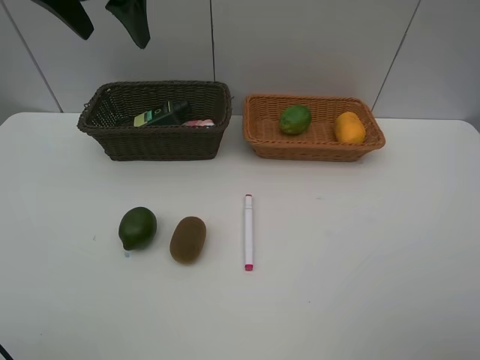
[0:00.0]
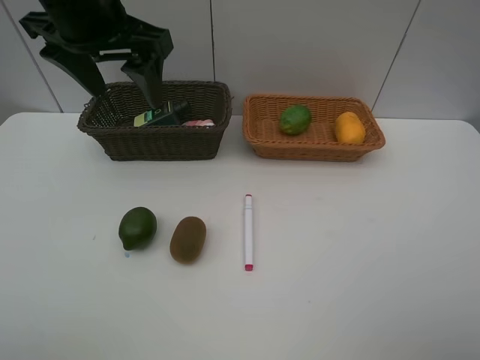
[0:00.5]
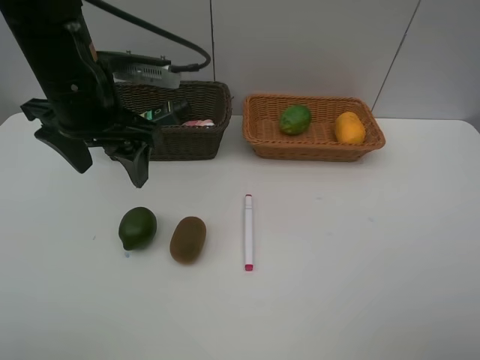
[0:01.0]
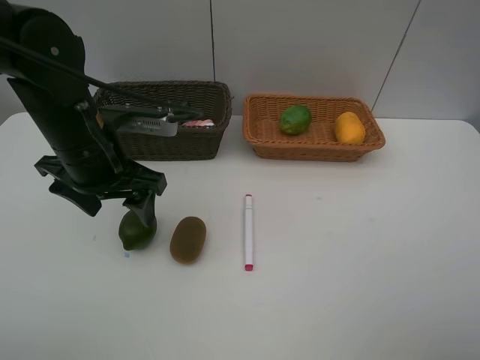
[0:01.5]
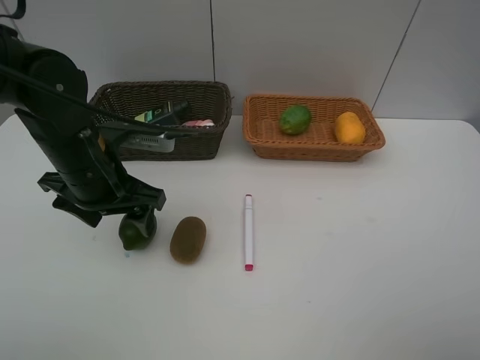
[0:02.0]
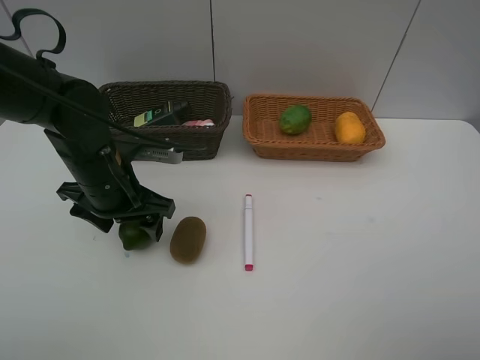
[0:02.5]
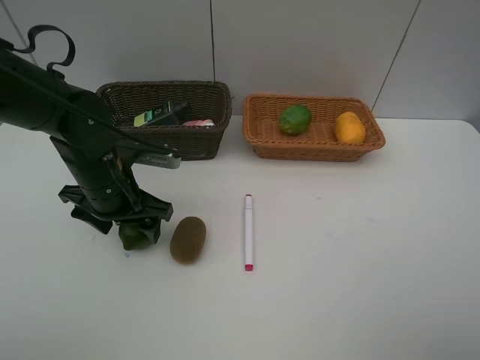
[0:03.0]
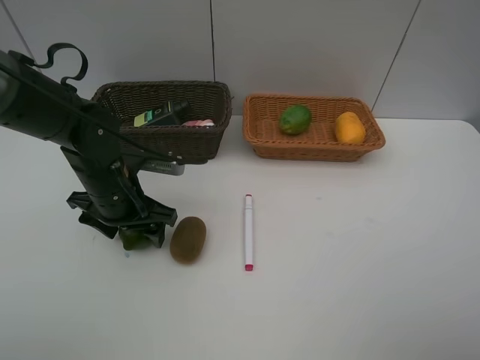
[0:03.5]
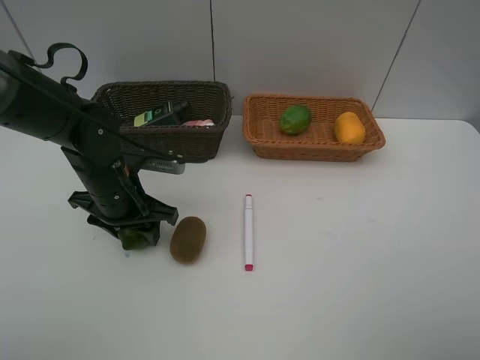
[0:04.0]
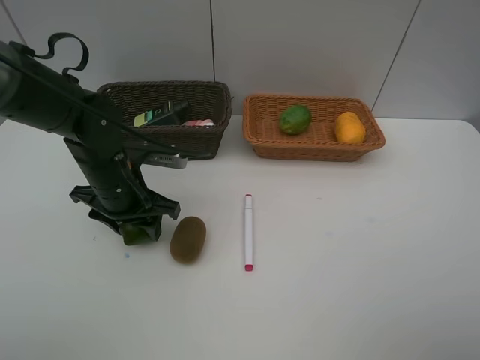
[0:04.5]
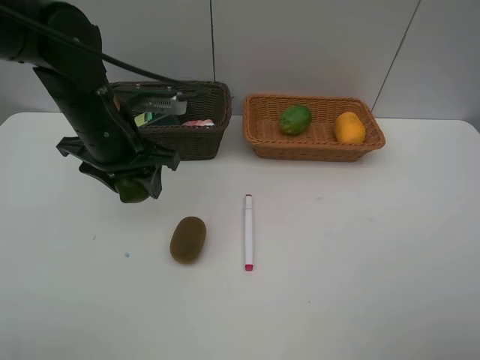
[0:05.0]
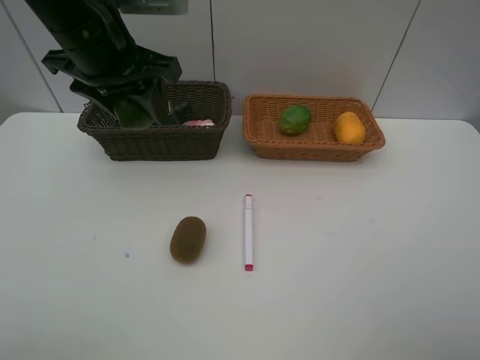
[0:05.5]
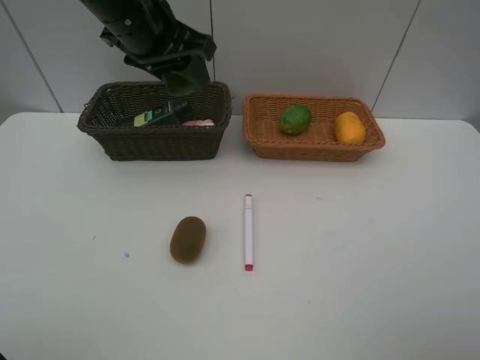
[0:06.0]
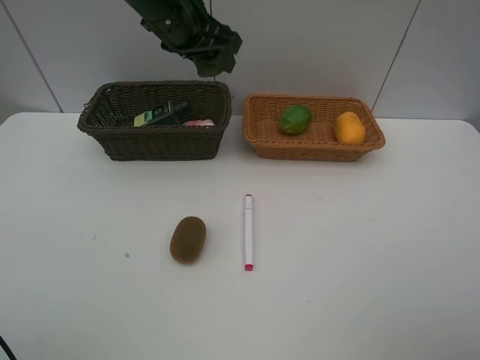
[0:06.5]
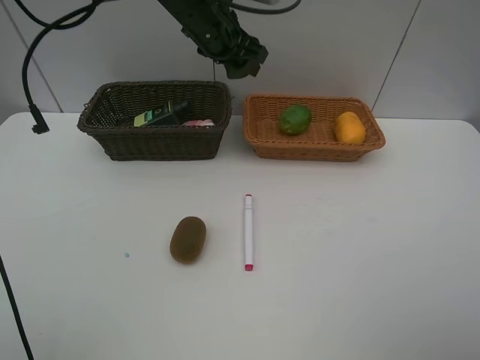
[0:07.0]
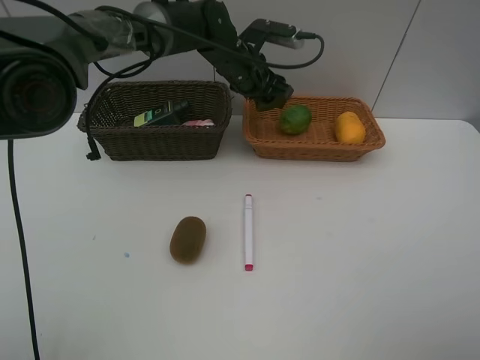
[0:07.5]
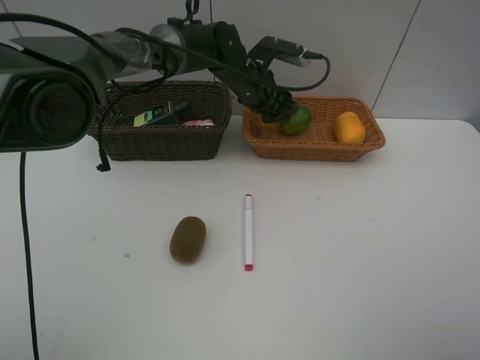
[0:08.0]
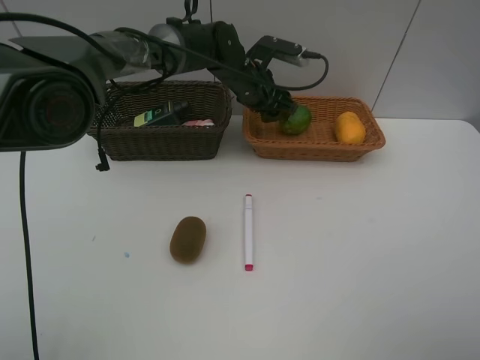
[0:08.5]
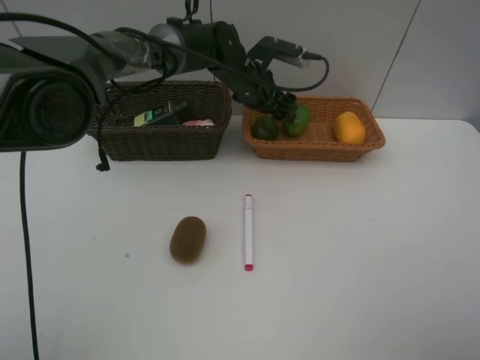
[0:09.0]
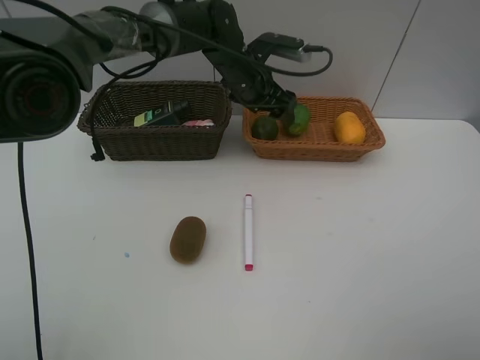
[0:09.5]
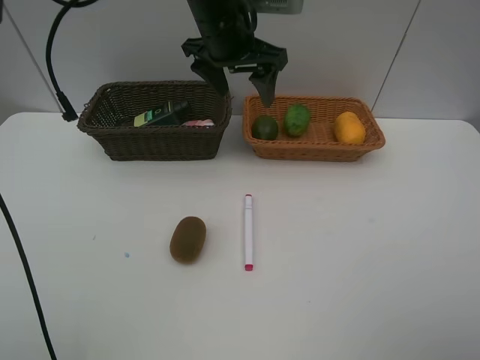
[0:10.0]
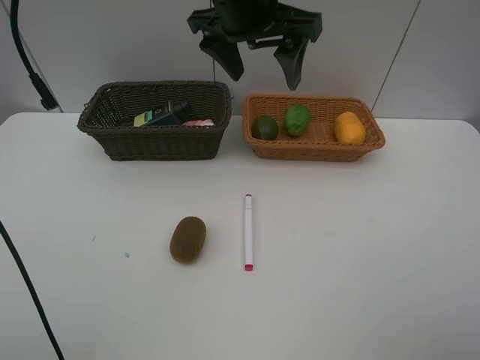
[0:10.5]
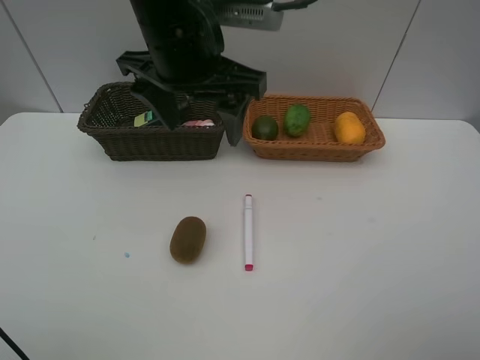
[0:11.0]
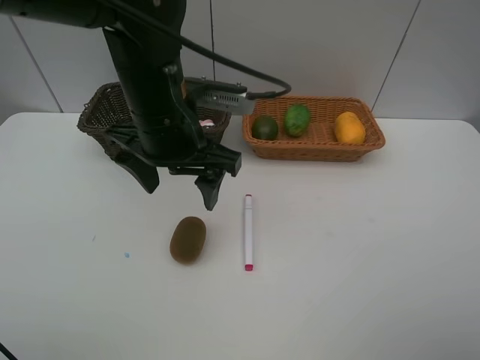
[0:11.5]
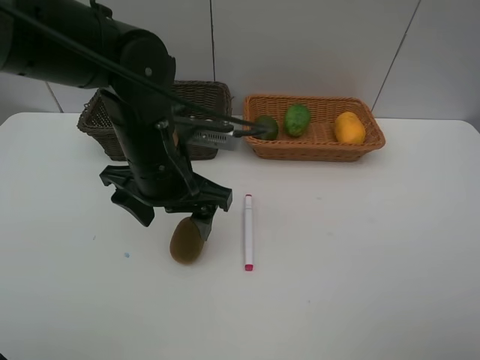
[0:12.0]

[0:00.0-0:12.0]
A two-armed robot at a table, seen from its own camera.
Task of the whole recording: Place multiple objects separately in different baskets.
Step, 0:00.0 to 0:04.5: Pick up the lime with left gripper.
Step, 0:05.0 to 0:09.5: Place the lime in the light basket with left gripper.
0:00.0 to 0:02.0: The left gripper is displaced downward and backward by some 25 cm.
0:02.0 to 0:04.0: The left gripper moves downward, about 5 cm.
0:04.0 to 0:06.0: The left gripper heads upward, covering roughly 20 cm.
0:06.0 to 0:08.0: The left gripper is displaced downward, to the right and forward by approximately 25 cm.
0:08.0 to 0:10.0: The left gripper goes some 15 cm upward and backward, and opens.
0:10.0 to 0:12.0: The left gripper goes approximately 20 cm backward and downward.

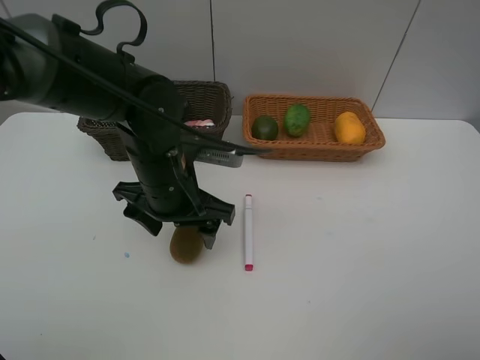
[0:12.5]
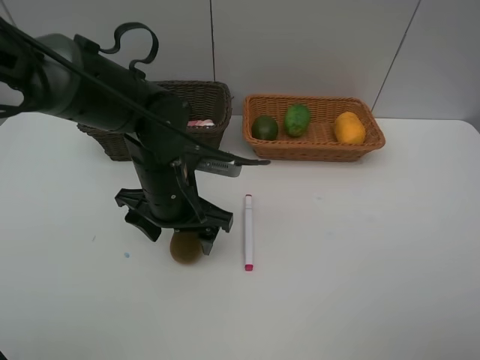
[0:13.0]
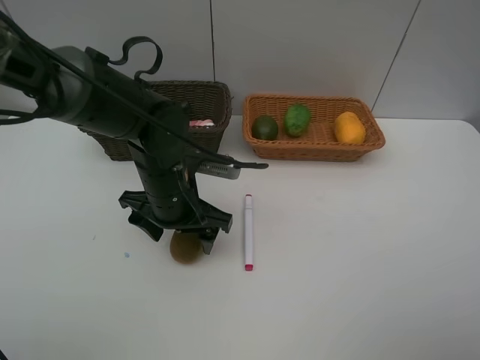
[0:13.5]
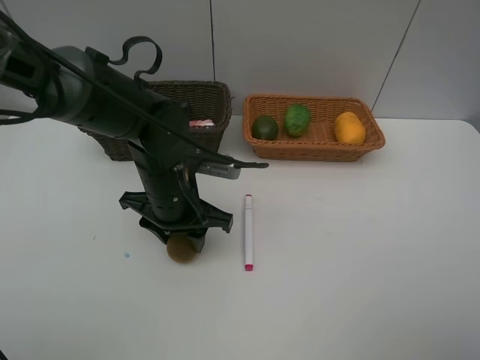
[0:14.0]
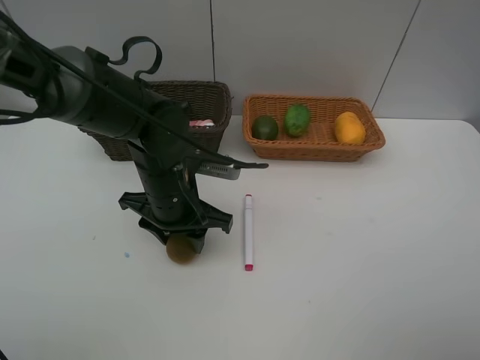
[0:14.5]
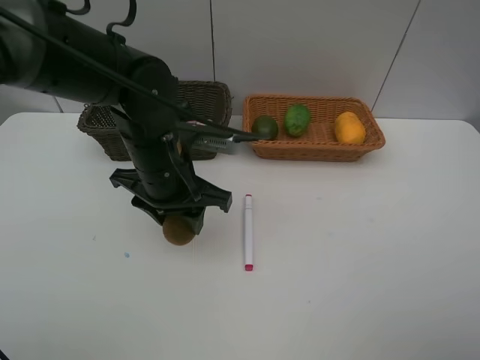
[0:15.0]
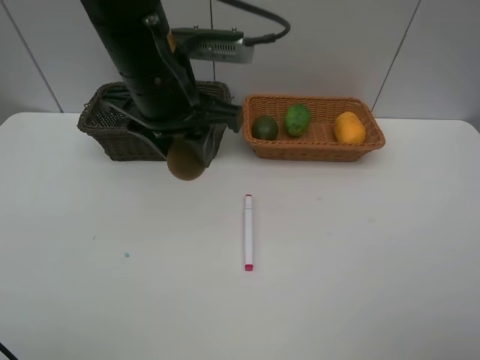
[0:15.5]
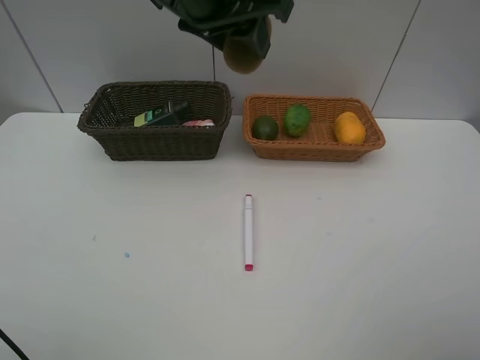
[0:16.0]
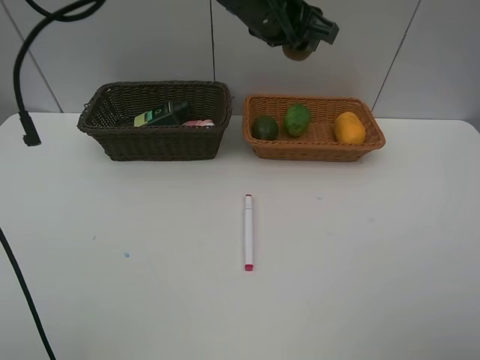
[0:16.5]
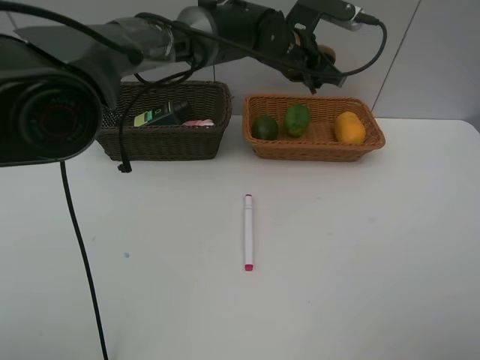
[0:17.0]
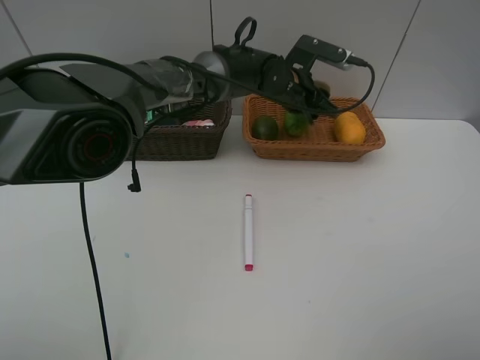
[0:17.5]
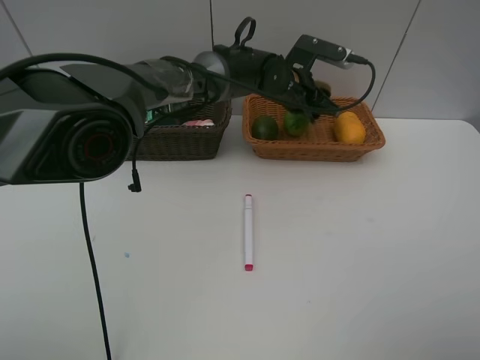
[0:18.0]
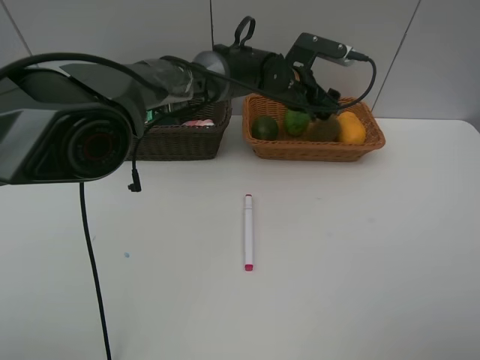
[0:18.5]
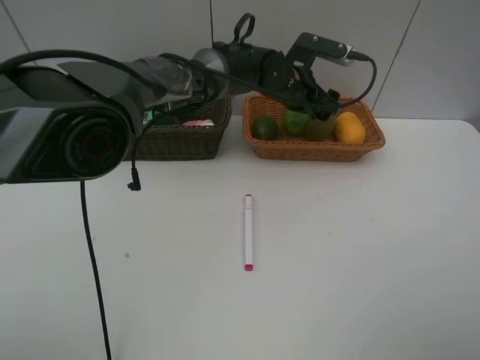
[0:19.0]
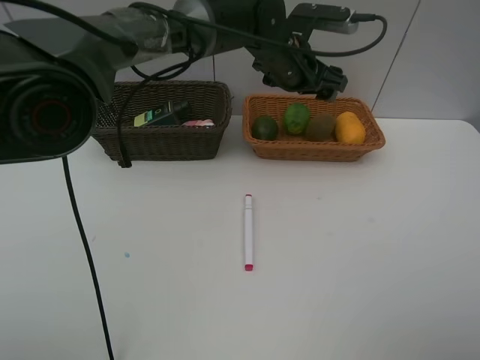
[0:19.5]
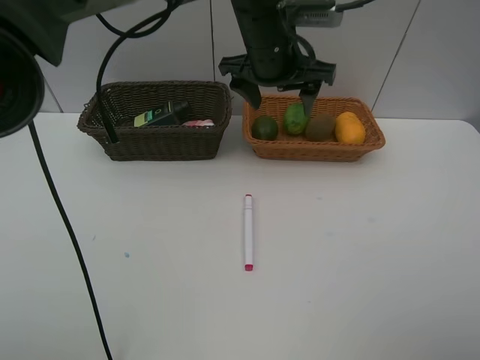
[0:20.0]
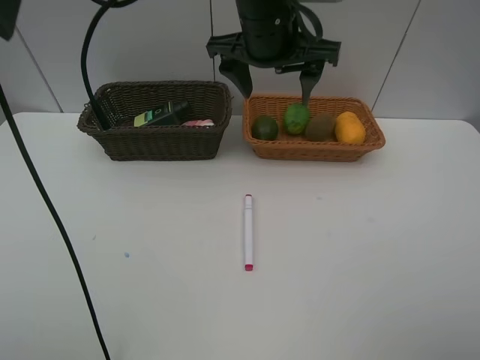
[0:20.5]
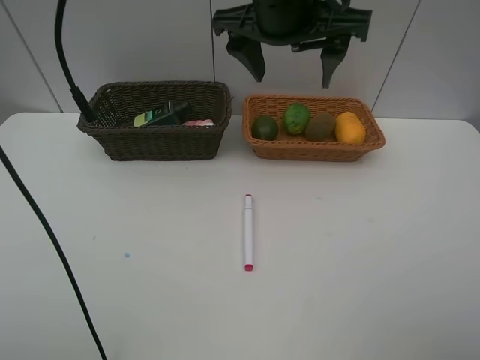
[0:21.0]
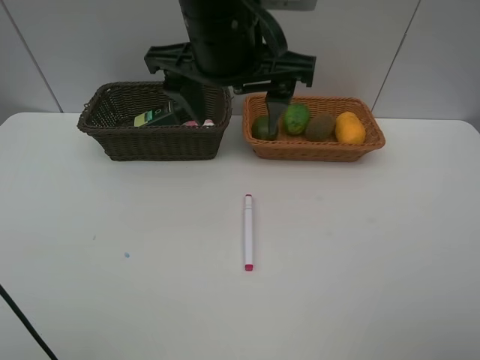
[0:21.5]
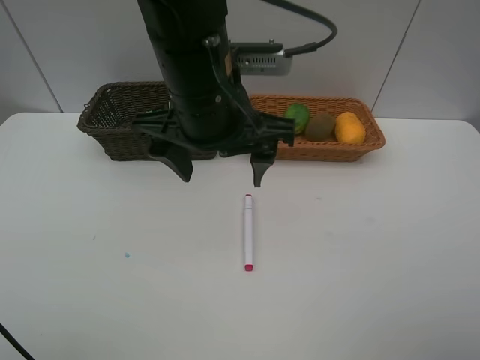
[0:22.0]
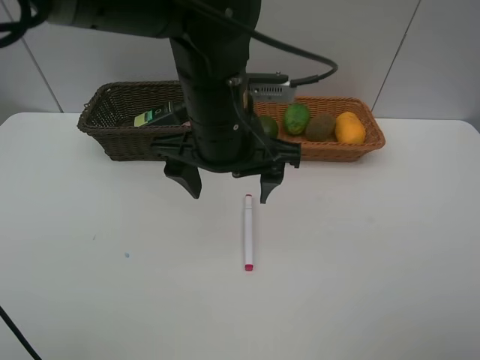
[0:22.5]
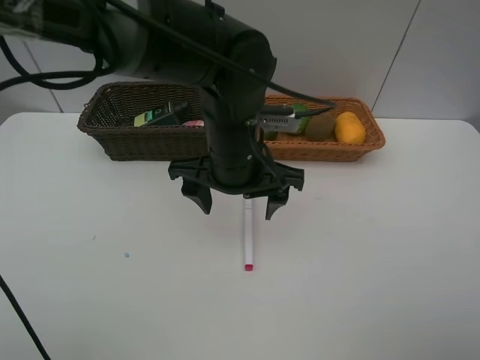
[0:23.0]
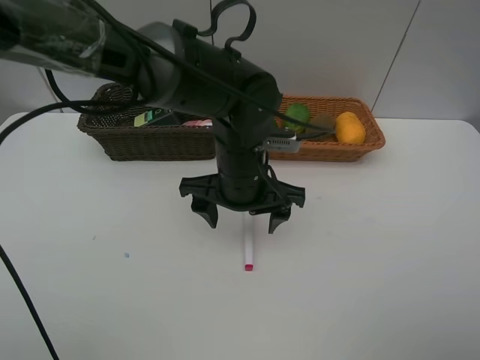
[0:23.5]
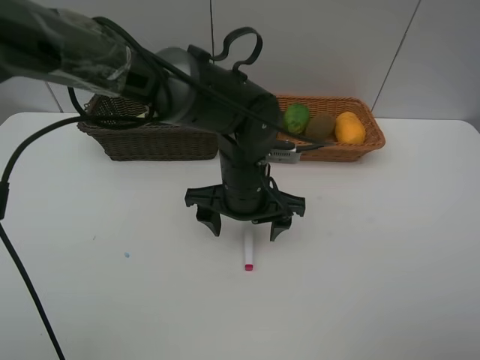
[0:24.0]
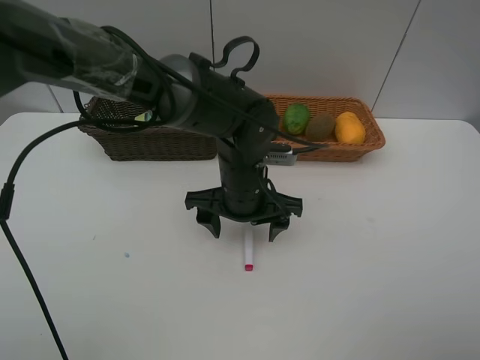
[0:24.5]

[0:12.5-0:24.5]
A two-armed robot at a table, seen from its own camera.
Task of the whole recording: Place multiple objects separately in different baskets.
Step, 0:12.5 to 0:14.5: Pick up kiwi with left gripper.
Step, 0:15.0 to 0:19.0: Place the kiwi in the light basket with left gripper.
0:12.5 to 0:14.5: The left gripper closes its fingers.
0:14.5 to 0:16.5: The left gripper is displaced upward, forward and to the right by some 25 cm.
0:16.5 to 0:18.5: The left gripper is displaced downward by about 15 cm, and opens up.
0:18.5 to 0:20.5: The left gripper goes about 15 cm upward and backward.
0:20.5 to 0:22.5: The left gripper travels backward and downward by some 10 cm.
0:22.5 to 0:24.5: The left gripper goes approximately 10 cm downward.

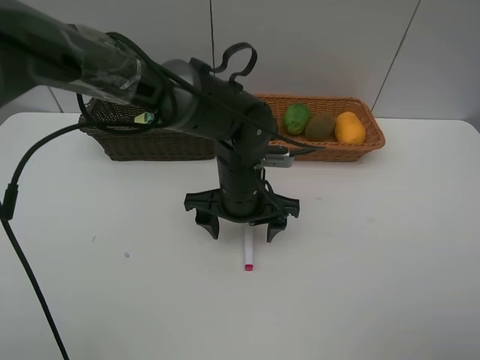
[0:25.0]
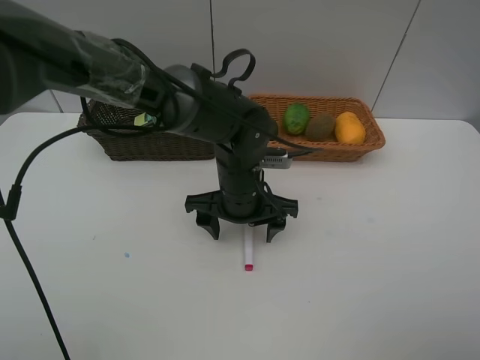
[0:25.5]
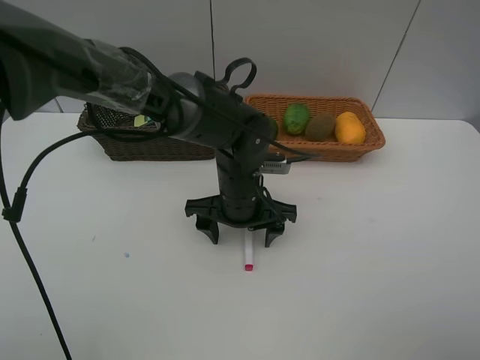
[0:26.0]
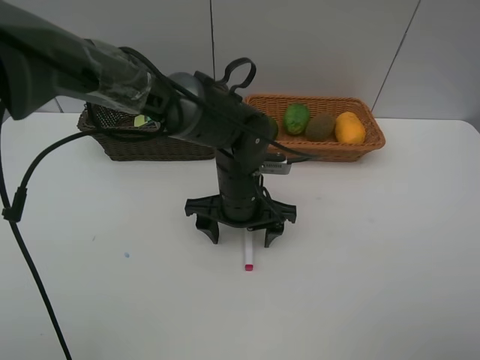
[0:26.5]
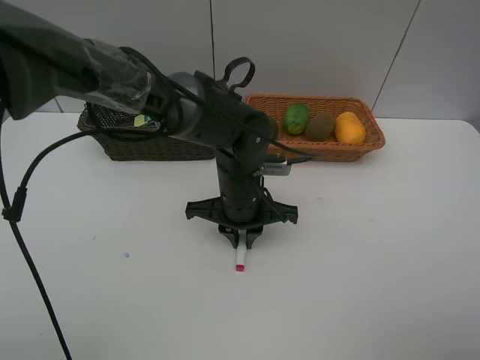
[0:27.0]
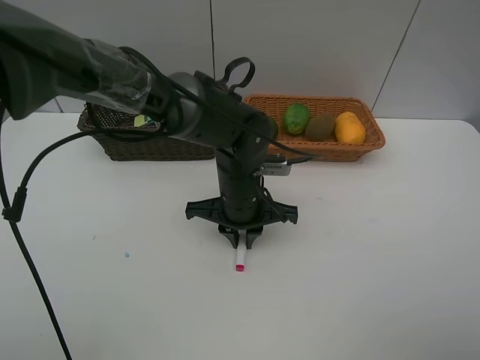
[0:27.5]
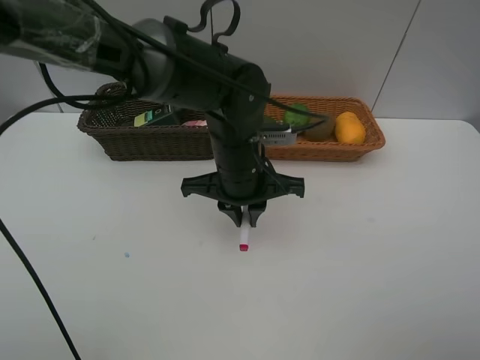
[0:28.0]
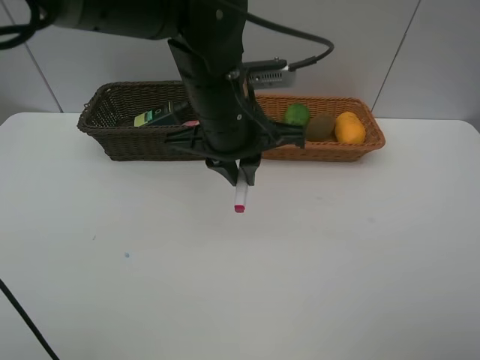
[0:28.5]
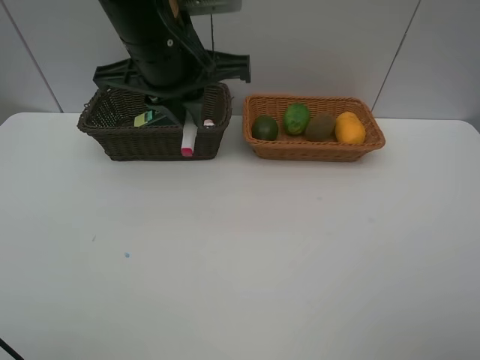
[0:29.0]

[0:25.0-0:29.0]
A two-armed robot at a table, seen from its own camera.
Task of the whole recording: Place multiple objects separately in different baskets.
Step, 0:25.0 to 0:27.5: Pick up pink marker pen with left gripper.
0:25.0 to 0:27.0: The left gripper closes its fingers.
0:27.0 to 0:29.0: The left gripper moves upward and to the left, some 25 cm.
